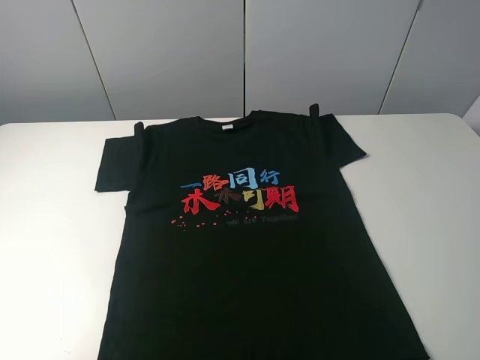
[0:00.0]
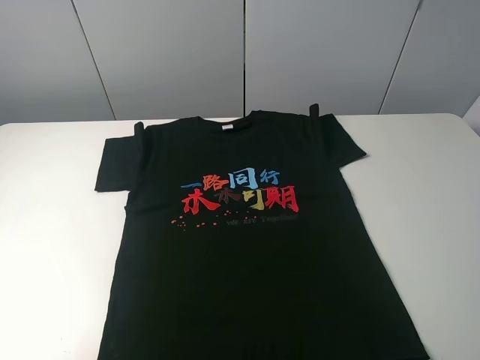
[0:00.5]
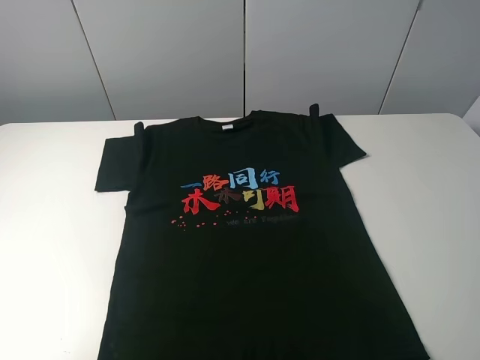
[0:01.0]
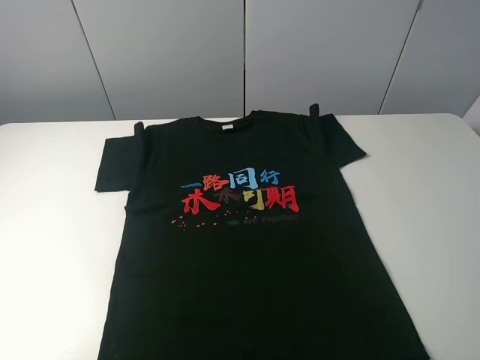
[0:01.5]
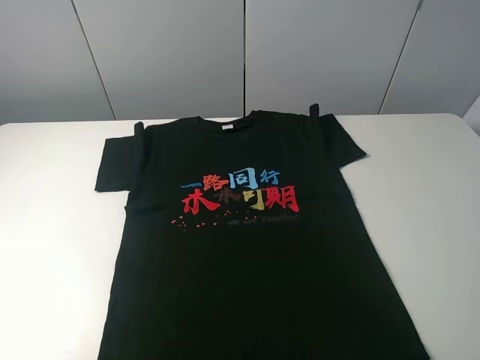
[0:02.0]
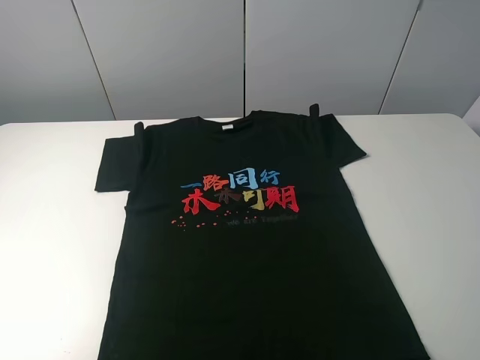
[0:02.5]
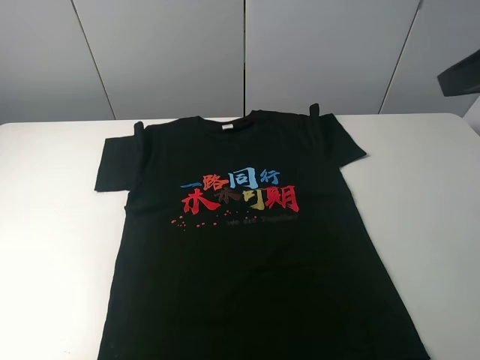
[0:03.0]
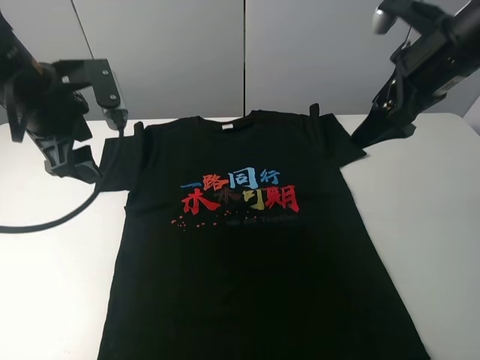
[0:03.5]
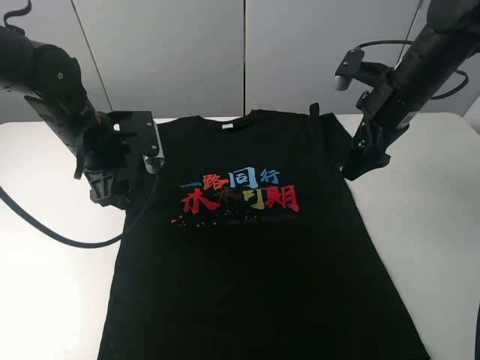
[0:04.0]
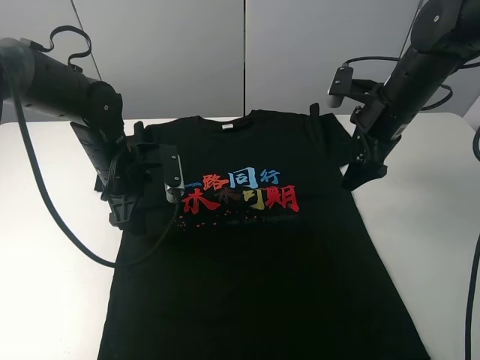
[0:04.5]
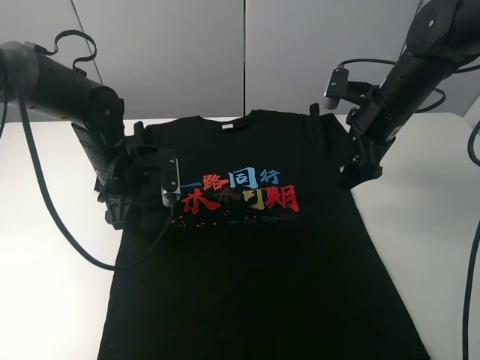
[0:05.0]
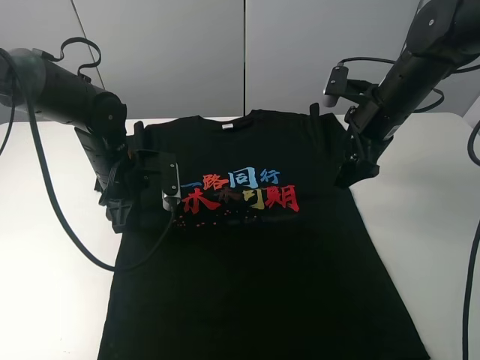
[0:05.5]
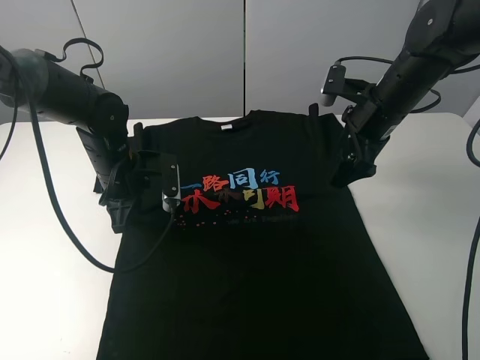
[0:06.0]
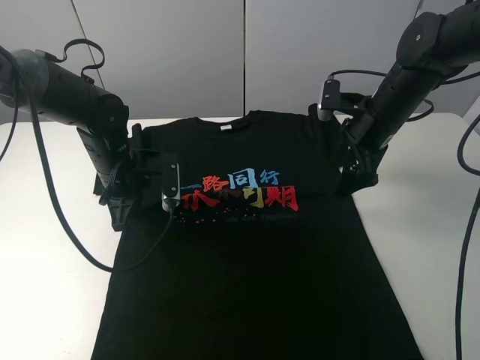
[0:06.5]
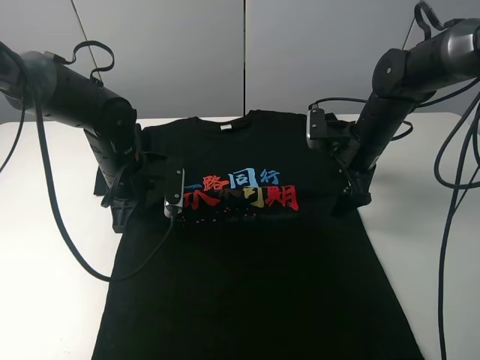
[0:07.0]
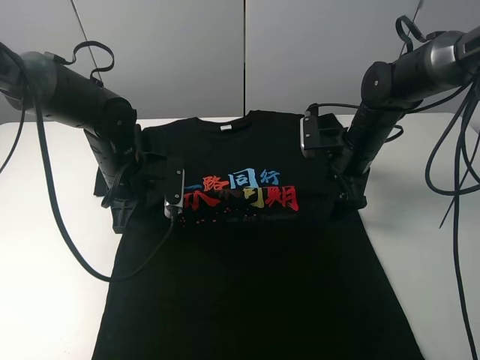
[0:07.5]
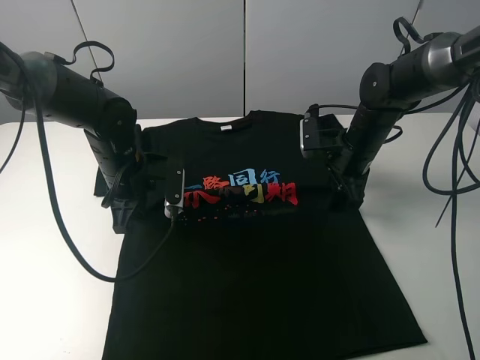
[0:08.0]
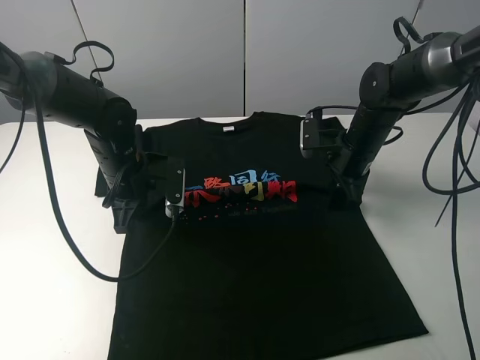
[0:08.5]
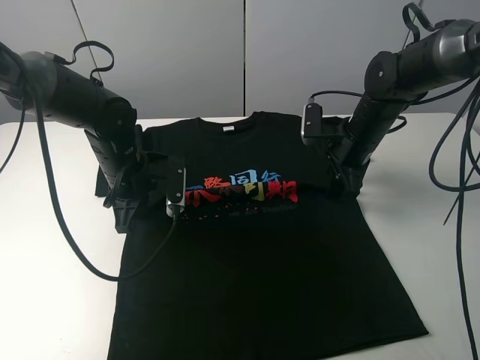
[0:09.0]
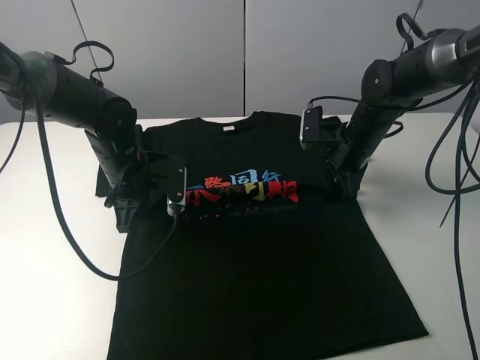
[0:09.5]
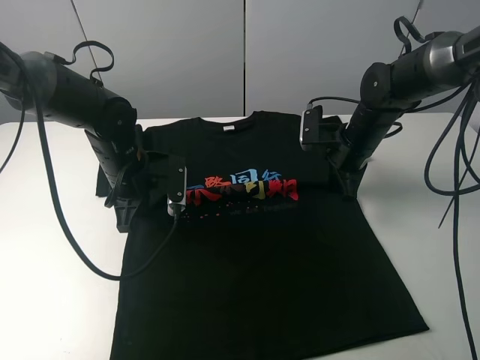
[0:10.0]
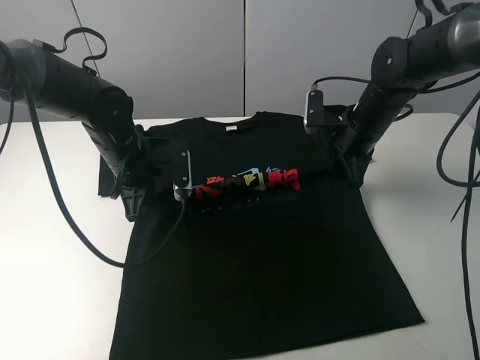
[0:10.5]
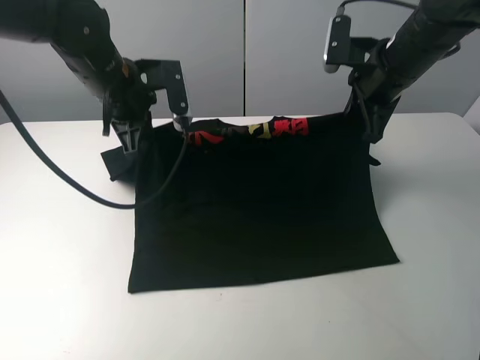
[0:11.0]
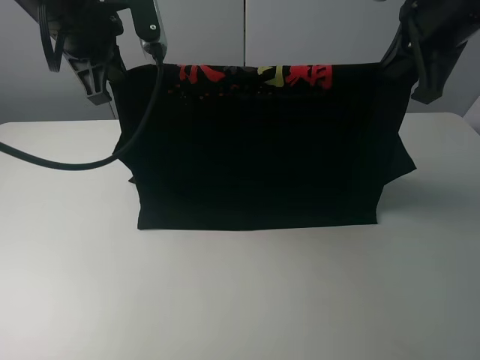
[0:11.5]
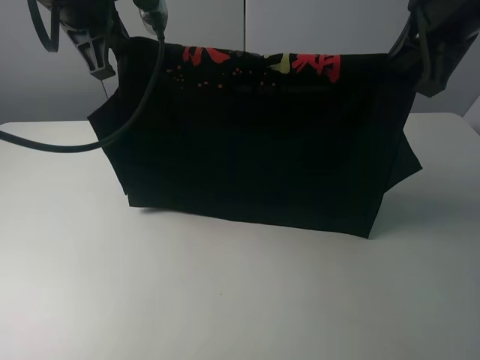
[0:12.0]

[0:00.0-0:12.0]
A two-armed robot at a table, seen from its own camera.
Task of the whole recording: fold the clothes on the table.
Step, 0:00.0 to 0:07.0: Lift the black T-shirt with the left gripper.
0:00.0 to 0:02.0: Neither gripper changes place.
0:02.0 to 0:04.0: The right gripper heads forward, covering approximately 35 cm, while the left gripper goes roughly 35 cm forward and to the right.
0:04.0 to 0:06.0: The left gripper goes roughly 5 cm downward, and closes.
0:06.0 to 0:08.0: The right gripper travels downward by roughly 10 cm, and closes up.
0:08.0 to 0:10.0: The right gripper closes.
0:10.0 to 0:12.0: Both grippers move upward, roughly 25 cm.

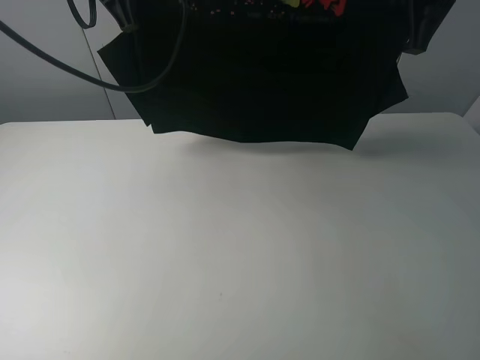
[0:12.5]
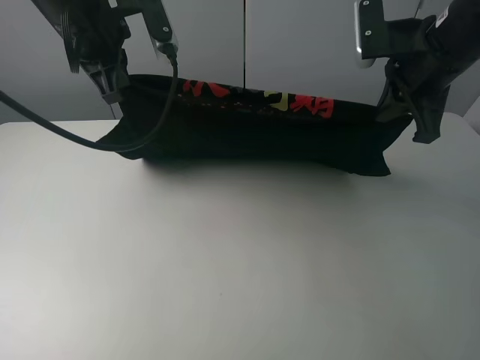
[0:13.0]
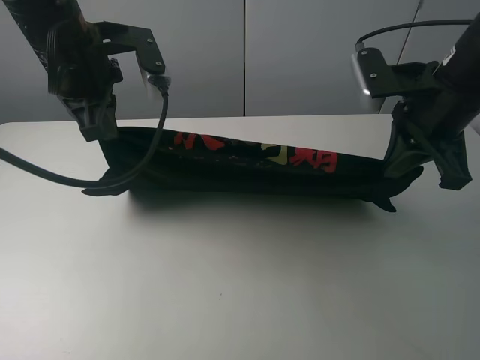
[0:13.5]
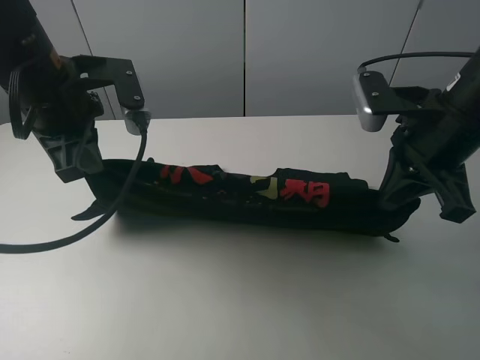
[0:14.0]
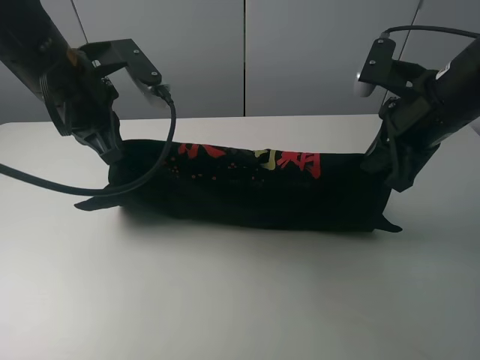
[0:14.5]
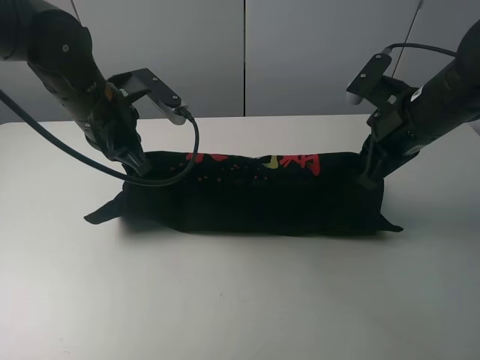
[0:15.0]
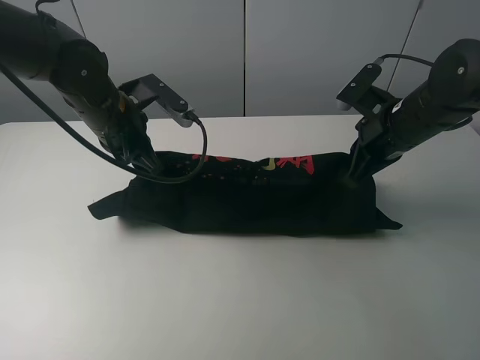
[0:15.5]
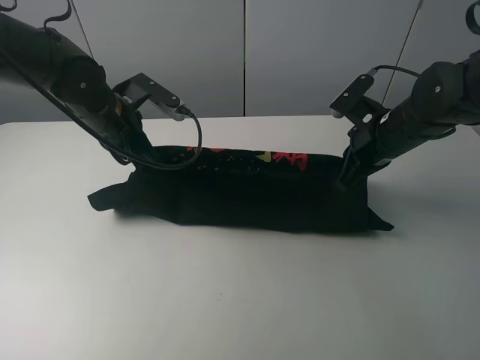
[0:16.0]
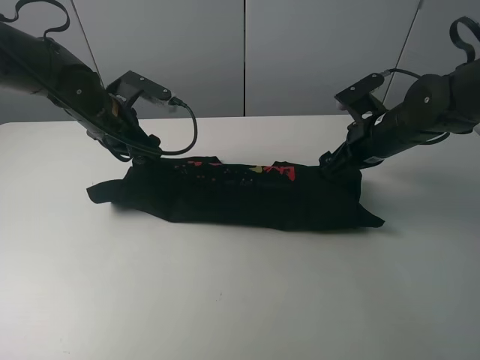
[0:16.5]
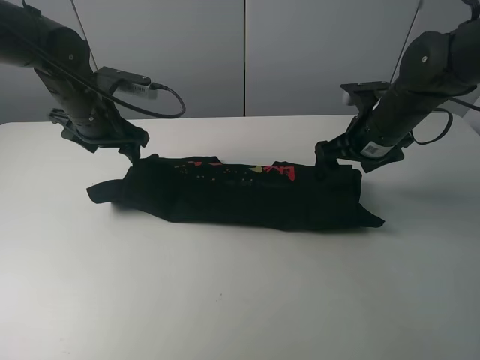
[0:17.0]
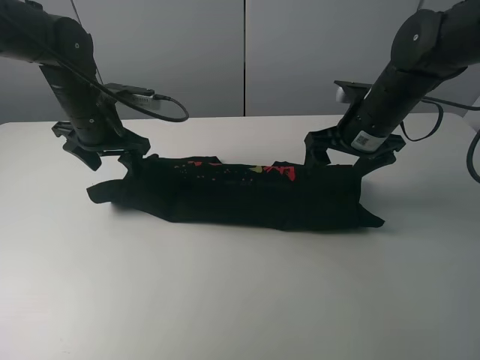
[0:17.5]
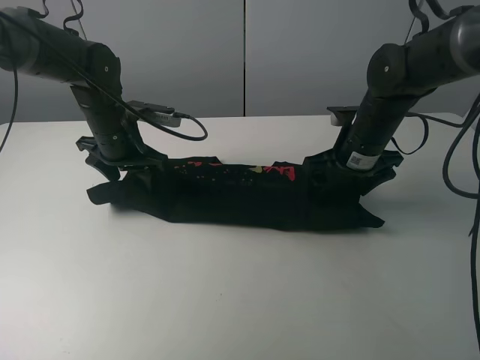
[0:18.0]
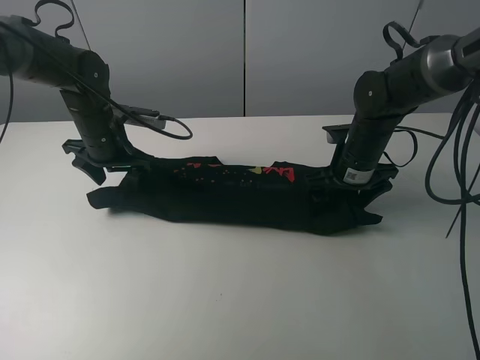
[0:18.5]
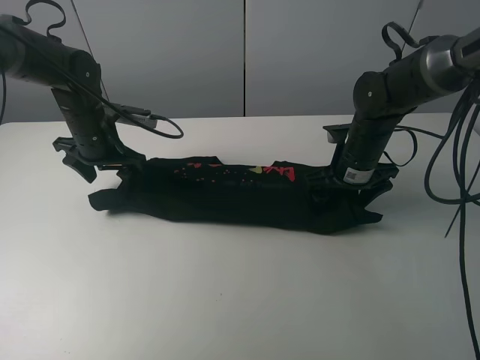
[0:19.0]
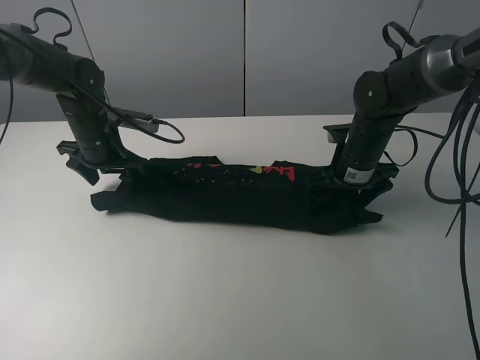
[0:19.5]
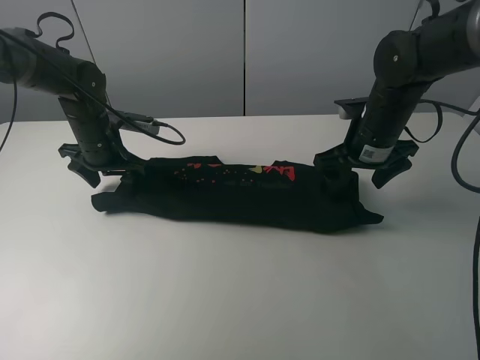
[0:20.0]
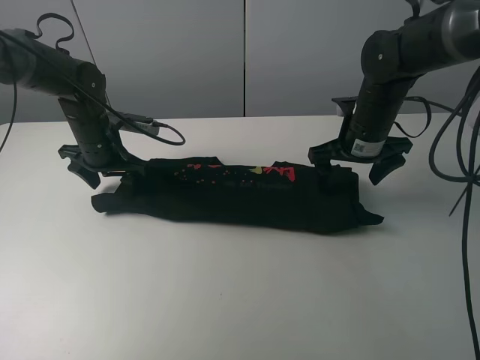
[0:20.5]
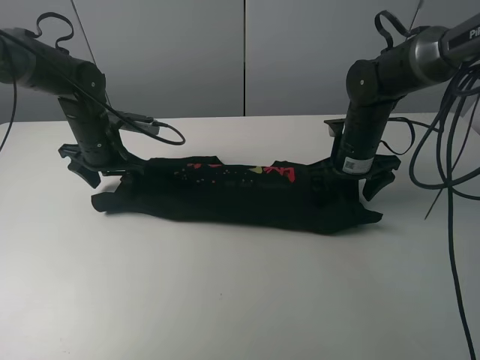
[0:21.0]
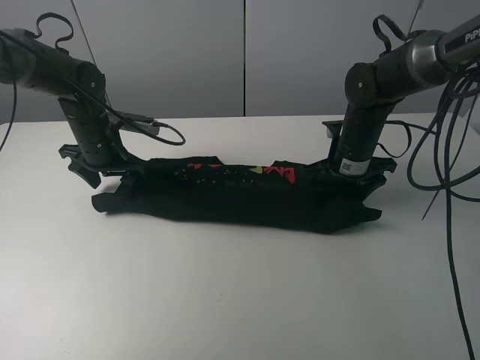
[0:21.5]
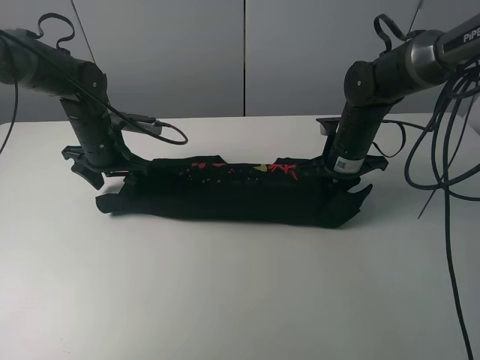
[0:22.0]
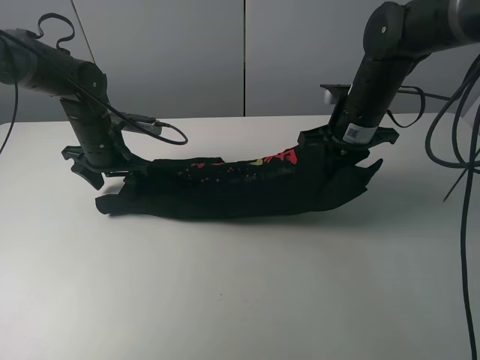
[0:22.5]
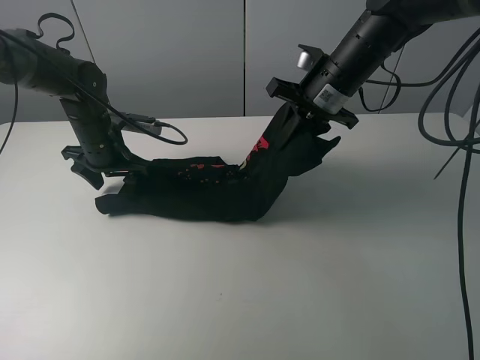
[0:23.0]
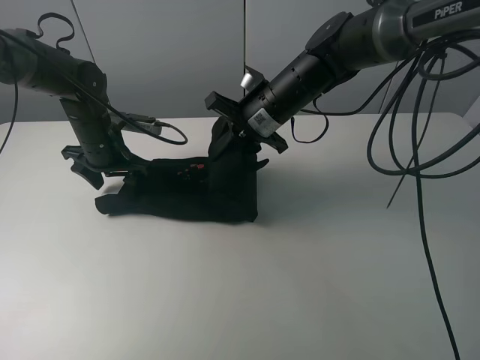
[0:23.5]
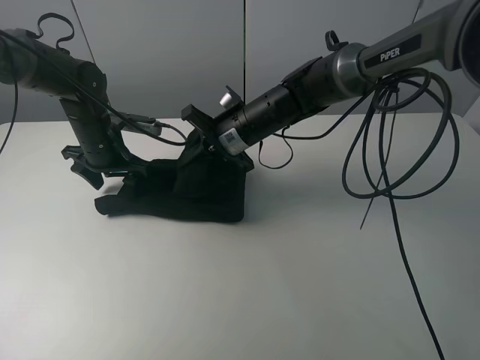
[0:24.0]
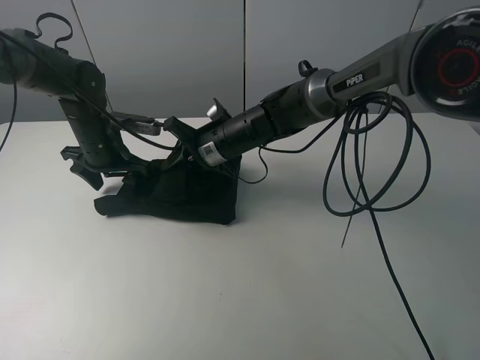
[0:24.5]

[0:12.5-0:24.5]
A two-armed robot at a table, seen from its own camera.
Task of the whole recording: fold the clothes on the table.
Step, 0:12.5 to 0:16.5: Fold the black T-shirt downward with the left gripper.
Step, 0:17.0 to 0:22.0: Grasp the black T-shirt with the right gripper.
0:12.5 to 0:14.5: The two grippers go roughly 15 cm downward and backward.
0:14.5 to 0:16.5: Both grippers move downward and forward, approximately 10 cm. The left gripper opens its fingers, while the right gripper opens.
0:20.5 to 0:22.5: The right gripper closes its fingers.
0:22.5 to 0:24.5: The right gripper moves to the left and downward, roughly 20 cm.

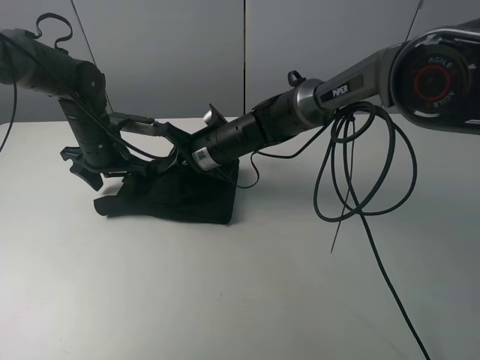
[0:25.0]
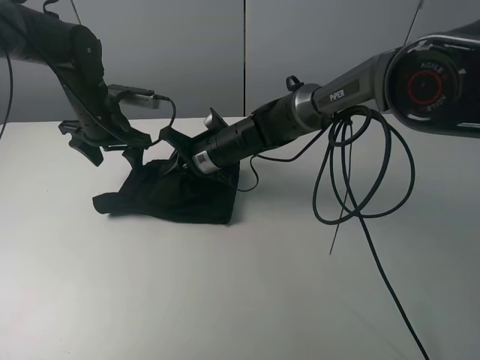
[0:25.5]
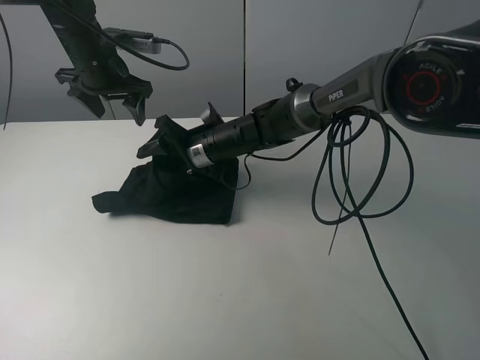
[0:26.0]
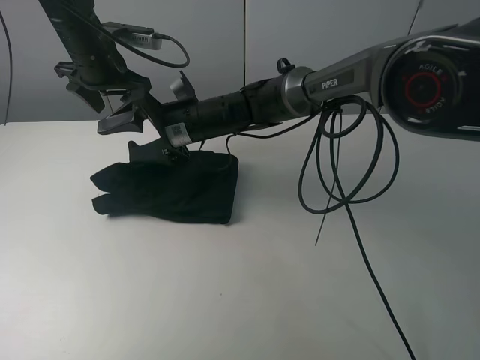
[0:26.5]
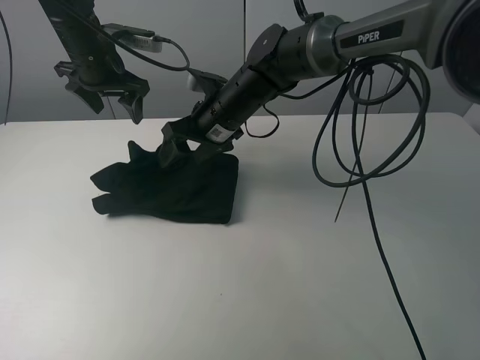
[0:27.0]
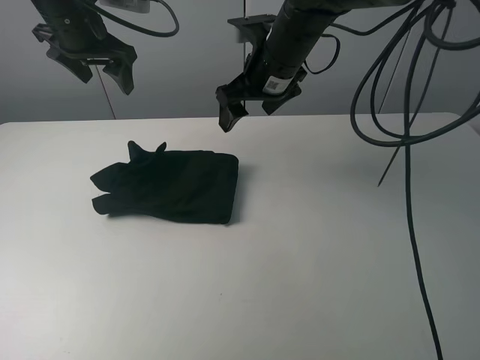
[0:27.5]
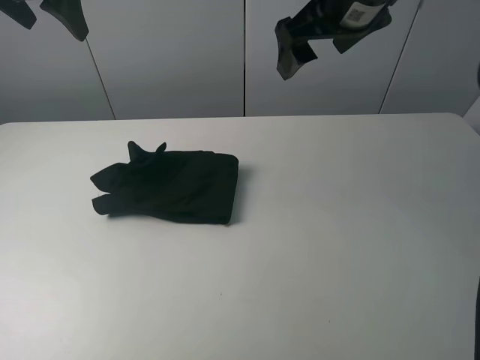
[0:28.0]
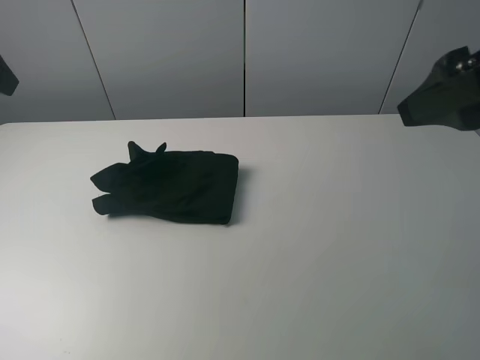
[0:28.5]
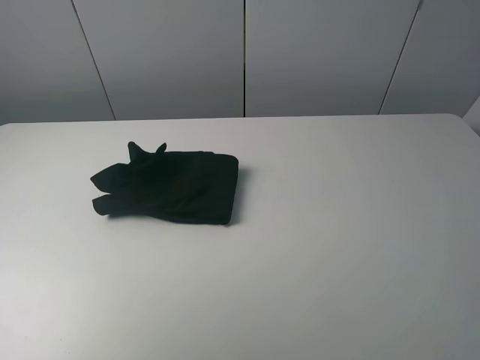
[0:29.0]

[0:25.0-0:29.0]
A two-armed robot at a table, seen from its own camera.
Task of the whole recording: fold the clothes on the table.
Step, 0:25.0 to 0:27.0: Fold the black T-shirt from right to left with right gripper.
0:25.0 to 0:27.0: The left gripper is displaced upward by about 10 cm; the right gripper is displaced upward by about 5 cm, and opens up.
0:27.0 to 0:29.0: The left gripper moves backward, roughly 35 cm, while the right gripper is displaced backward, to the right and upward by about 50 cm.
